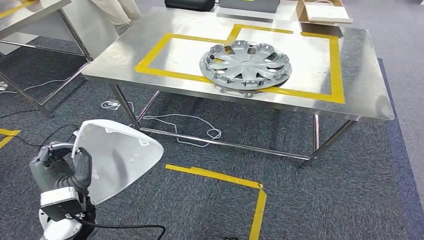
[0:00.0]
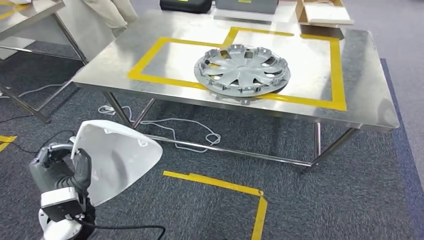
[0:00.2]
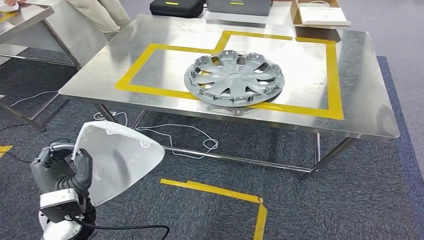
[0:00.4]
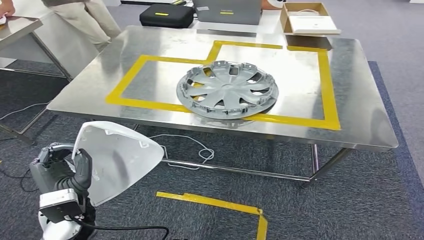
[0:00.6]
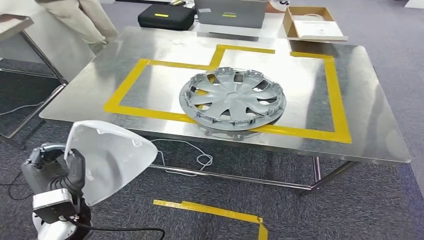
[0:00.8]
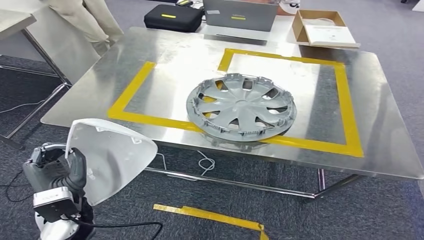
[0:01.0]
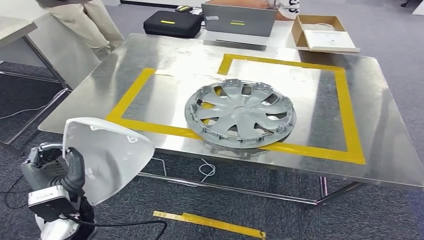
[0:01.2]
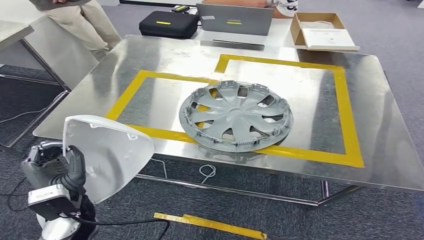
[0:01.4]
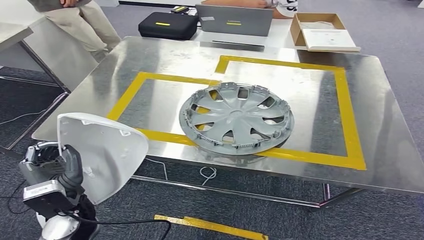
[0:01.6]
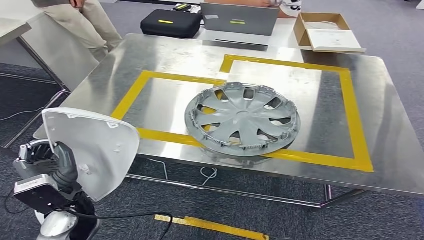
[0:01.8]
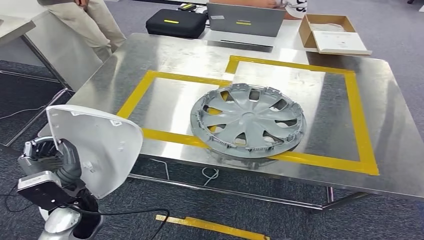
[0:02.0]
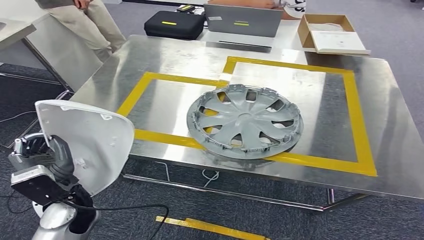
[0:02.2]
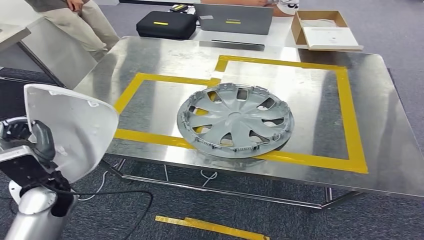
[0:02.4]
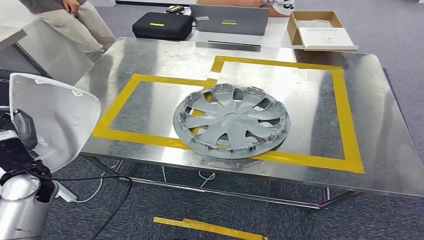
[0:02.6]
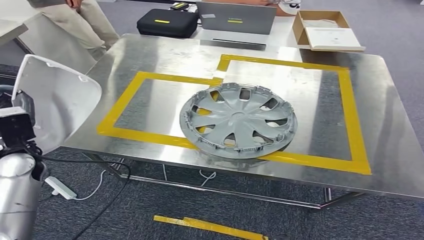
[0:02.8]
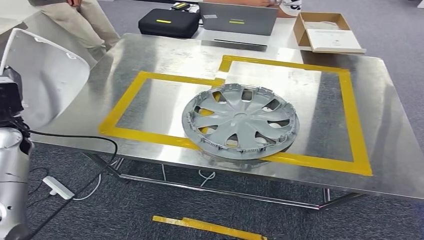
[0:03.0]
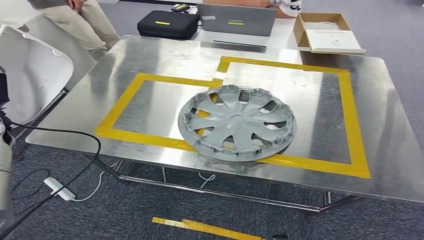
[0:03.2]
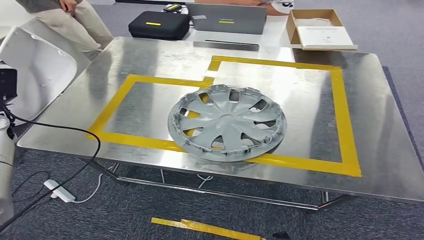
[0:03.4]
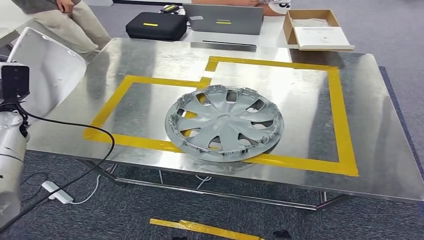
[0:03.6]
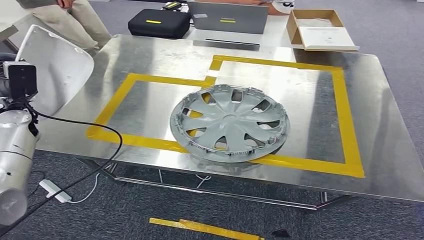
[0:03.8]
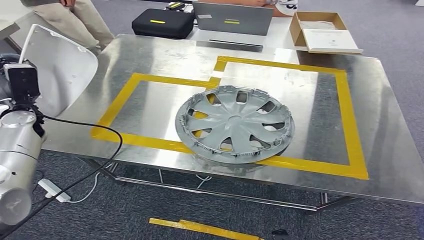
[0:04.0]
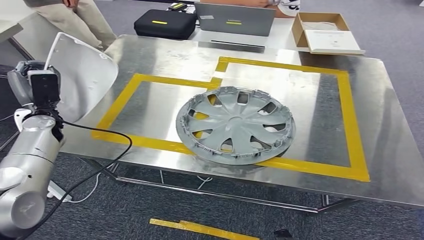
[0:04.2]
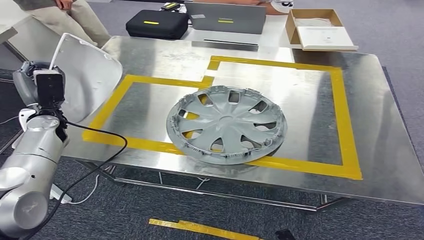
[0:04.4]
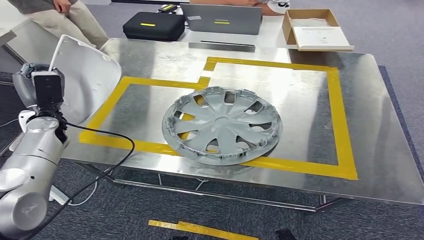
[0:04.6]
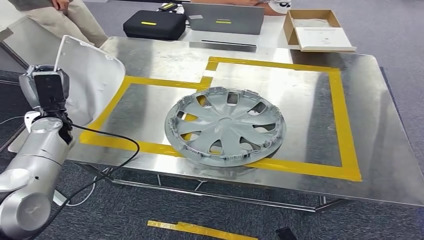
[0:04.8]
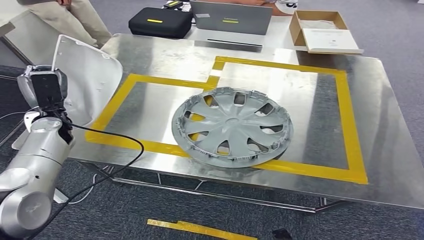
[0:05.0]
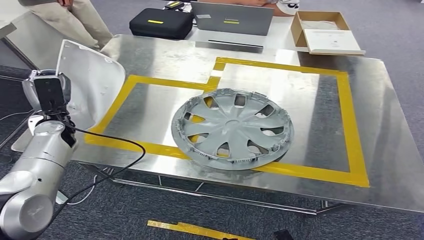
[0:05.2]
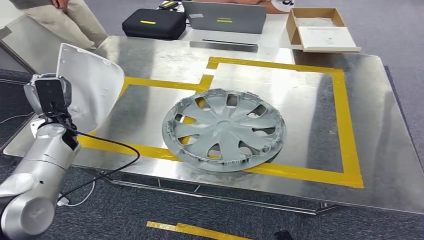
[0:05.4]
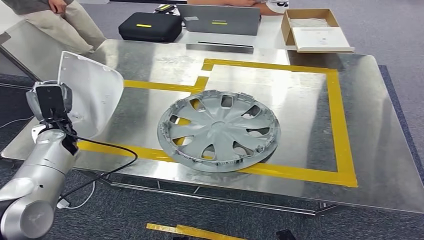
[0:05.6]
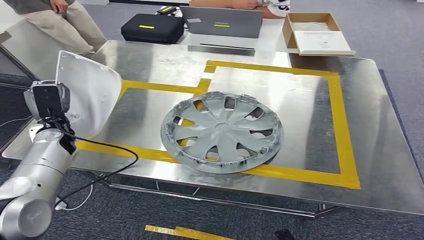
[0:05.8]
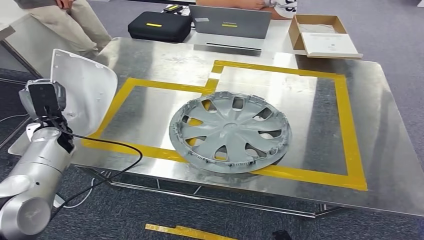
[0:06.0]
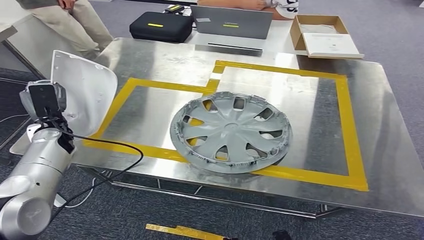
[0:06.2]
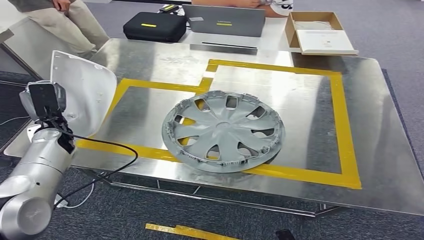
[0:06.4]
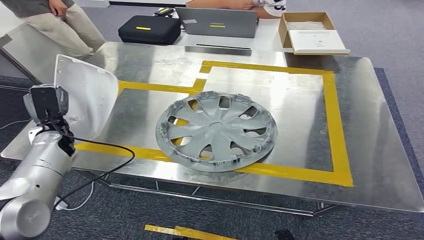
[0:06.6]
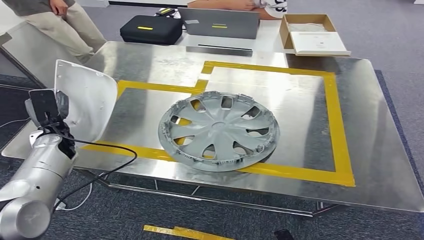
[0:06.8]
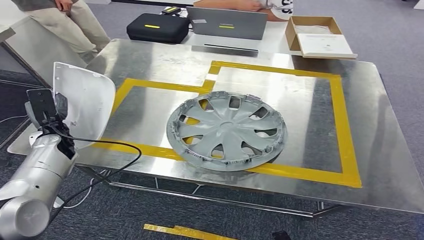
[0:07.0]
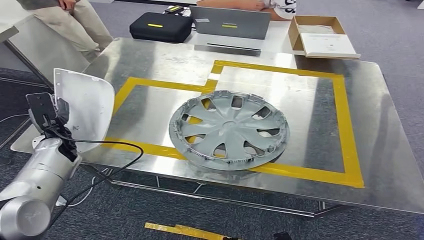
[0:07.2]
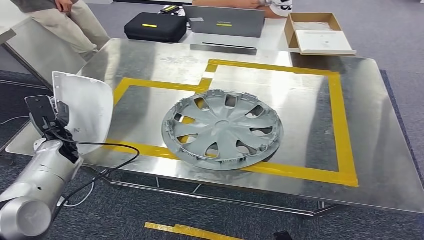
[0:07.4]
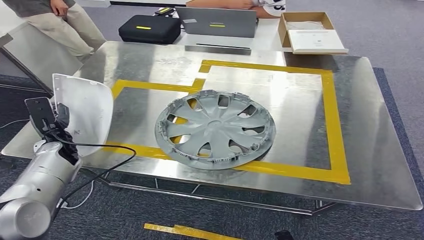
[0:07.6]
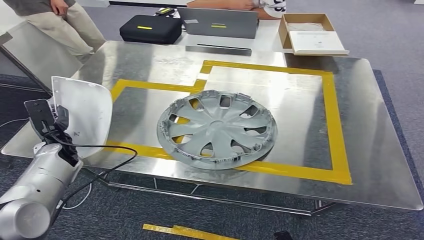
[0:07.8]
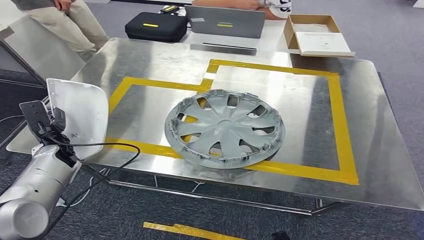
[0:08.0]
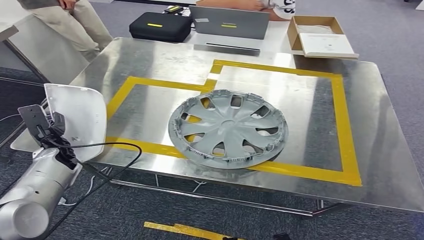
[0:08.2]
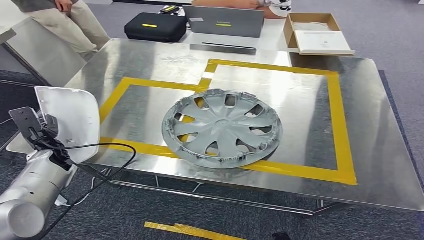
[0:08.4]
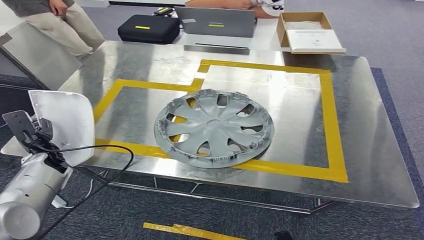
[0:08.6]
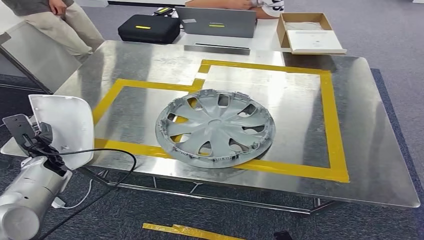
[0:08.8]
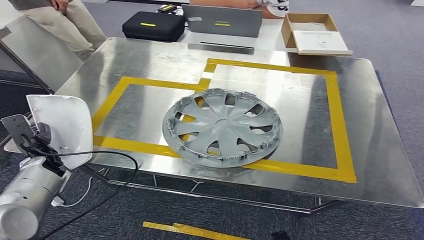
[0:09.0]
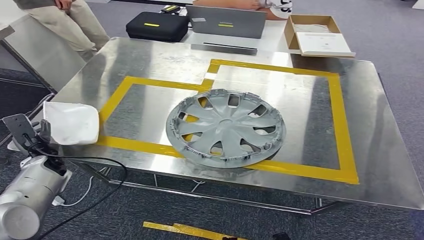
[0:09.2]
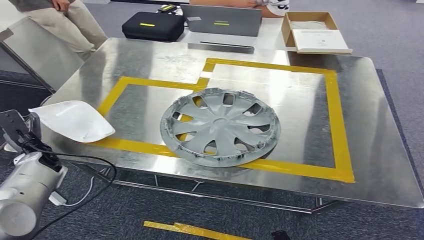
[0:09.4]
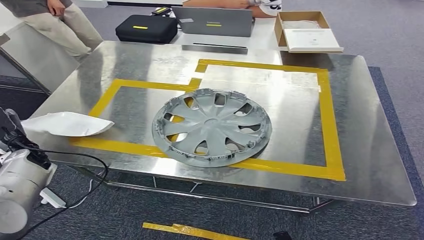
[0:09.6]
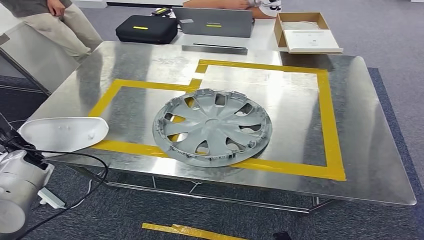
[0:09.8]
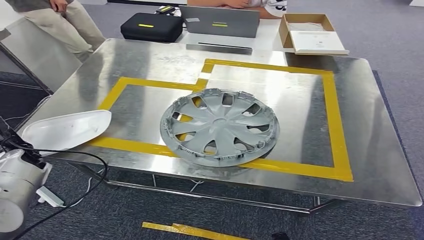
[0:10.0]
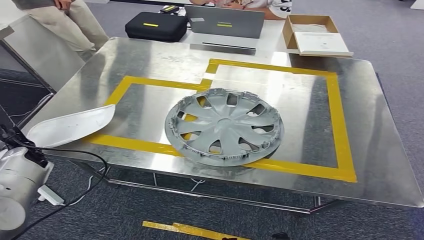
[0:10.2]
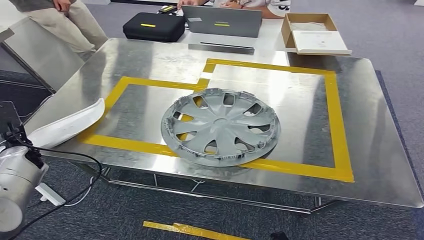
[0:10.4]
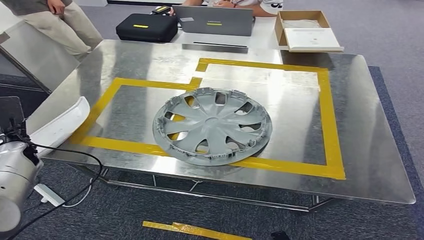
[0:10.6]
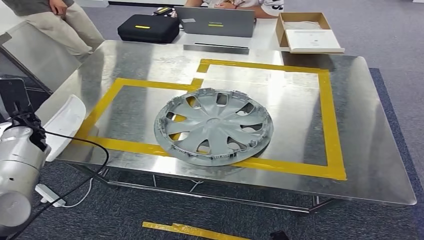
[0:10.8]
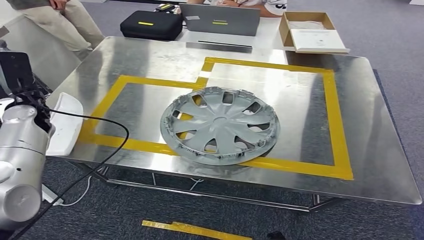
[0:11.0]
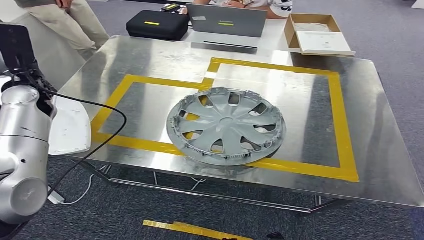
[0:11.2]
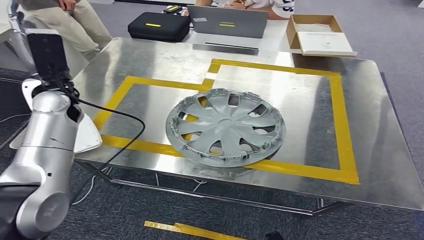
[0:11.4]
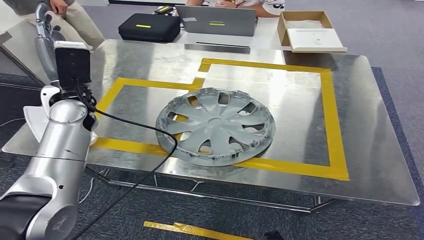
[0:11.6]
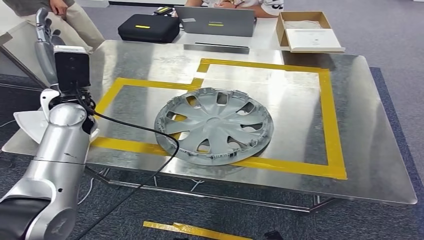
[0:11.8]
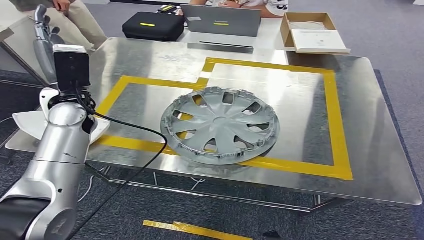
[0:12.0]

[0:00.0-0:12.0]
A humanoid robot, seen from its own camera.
Step, 0:01.6 to 0:11.2: Insert the small component into the corresponding slot on the workbench.
0:09.0 to 0:10.4: The left hand moves some 5 cm.
0:10.4 to 0:12.0: The left hand goes approximately 30 cm to the right and upward.

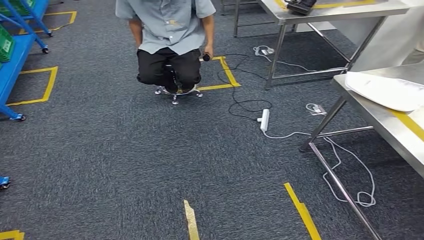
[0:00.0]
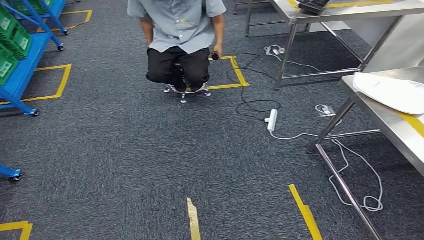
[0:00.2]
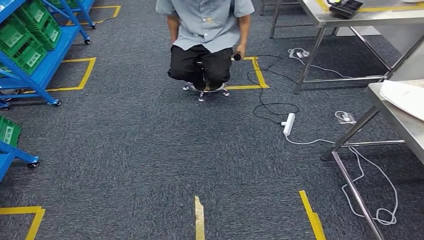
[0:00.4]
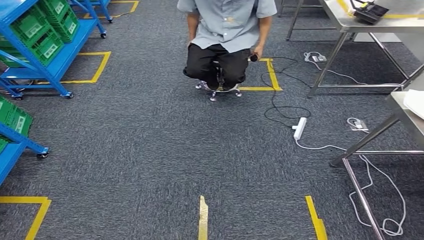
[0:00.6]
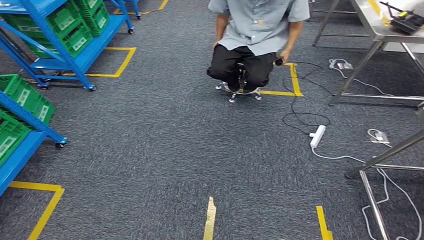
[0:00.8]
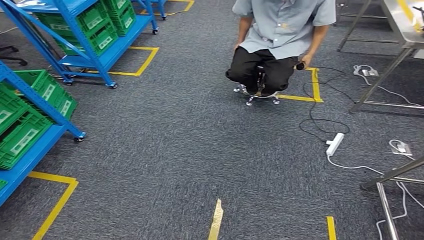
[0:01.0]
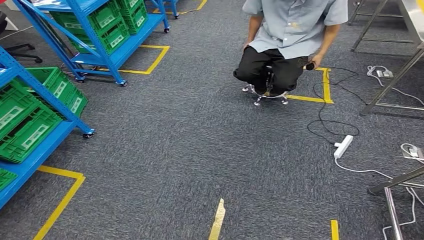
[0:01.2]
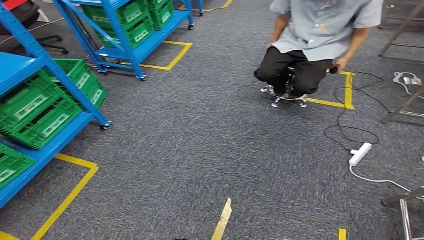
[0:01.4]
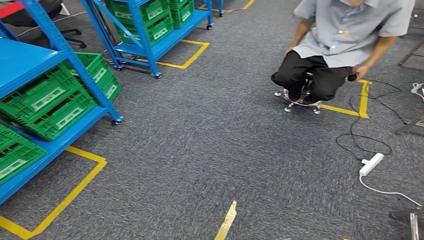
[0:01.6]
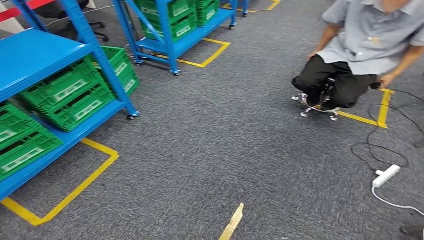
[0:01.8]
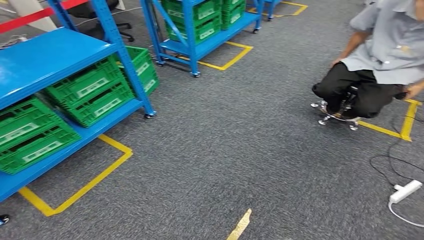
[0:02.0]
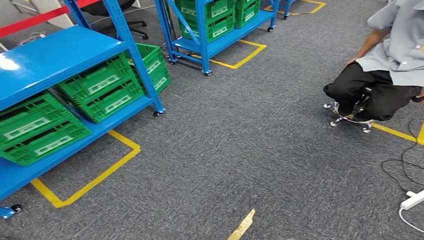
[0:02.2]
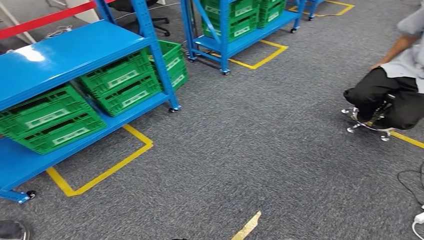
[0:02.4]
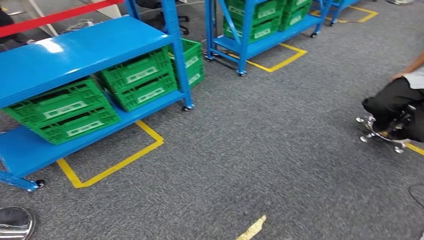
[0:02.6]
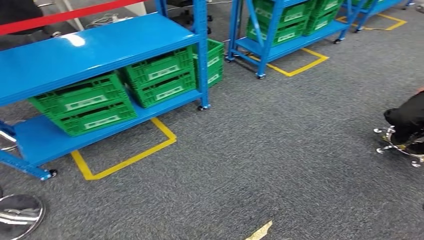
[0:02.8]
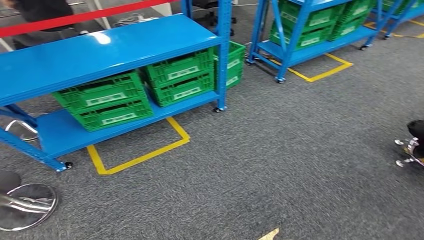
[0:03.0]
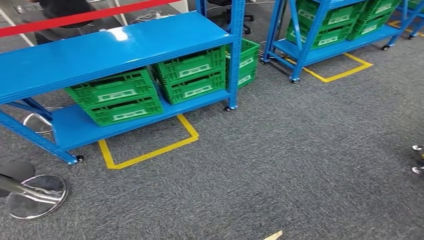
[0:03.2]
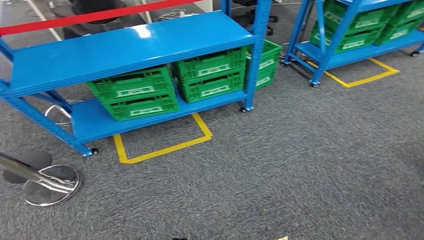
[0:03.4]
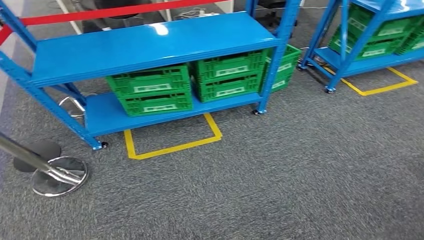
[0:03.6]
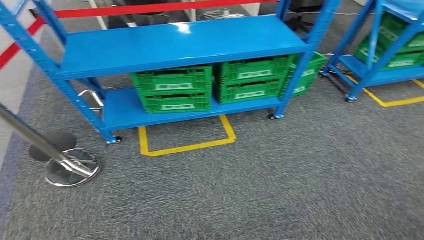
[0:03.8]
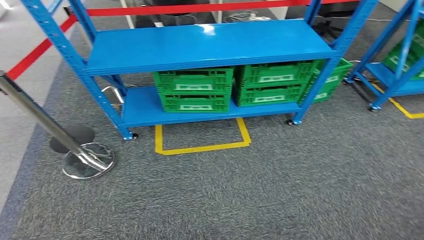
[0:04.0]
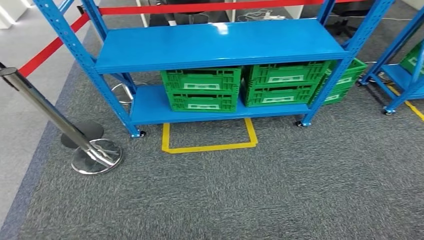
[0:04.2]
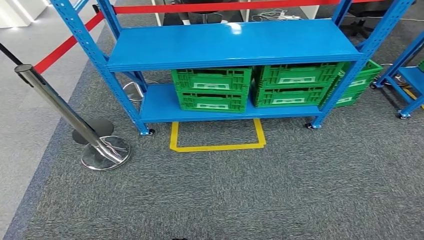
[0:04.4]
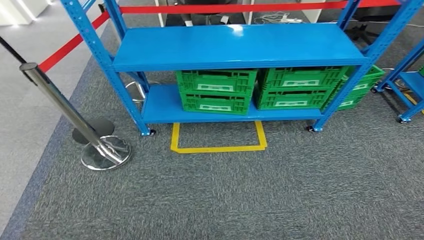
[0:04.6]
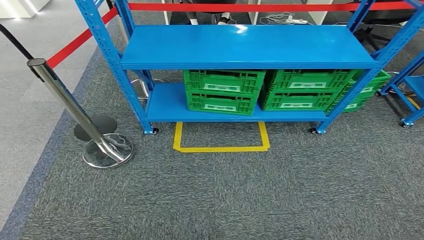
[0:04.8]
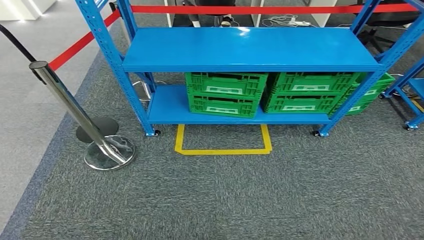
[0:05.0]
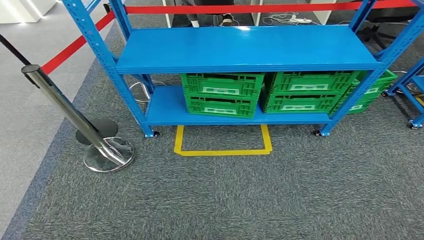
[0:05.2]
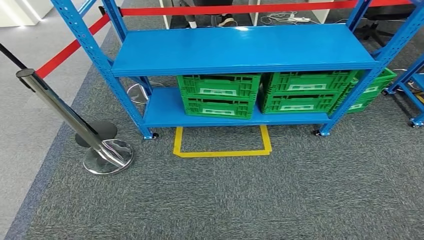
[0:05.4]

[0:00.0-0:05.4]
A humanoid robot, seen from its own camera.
Step, 0:00.0 to 0:05.4: Return to the initial position at the workbench.
